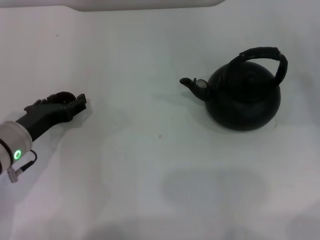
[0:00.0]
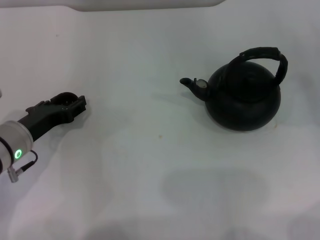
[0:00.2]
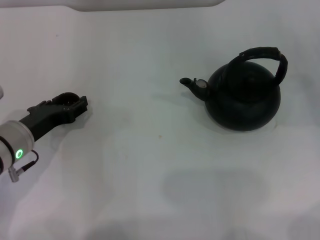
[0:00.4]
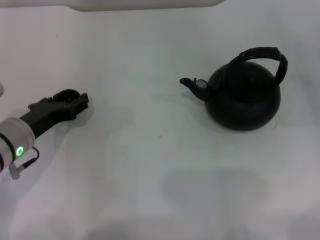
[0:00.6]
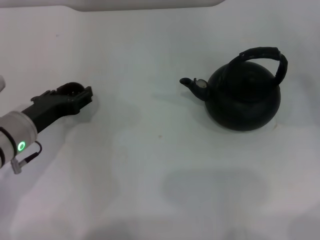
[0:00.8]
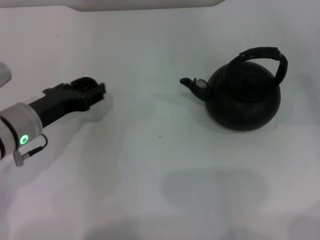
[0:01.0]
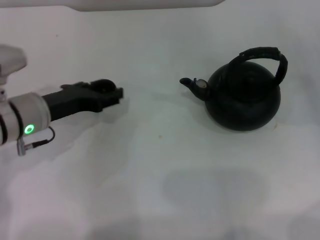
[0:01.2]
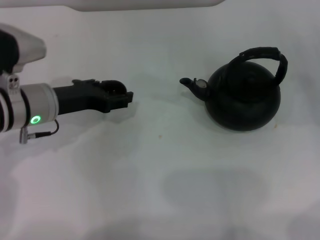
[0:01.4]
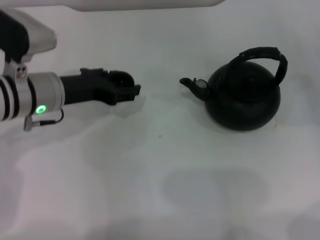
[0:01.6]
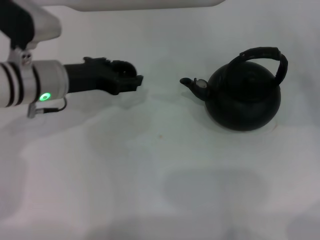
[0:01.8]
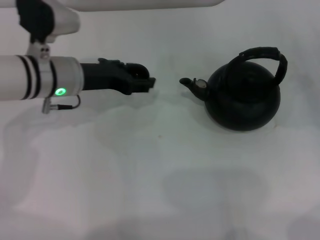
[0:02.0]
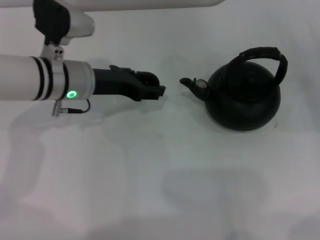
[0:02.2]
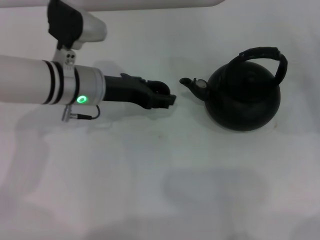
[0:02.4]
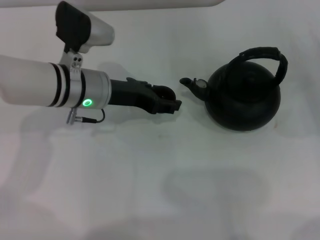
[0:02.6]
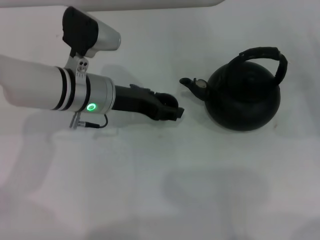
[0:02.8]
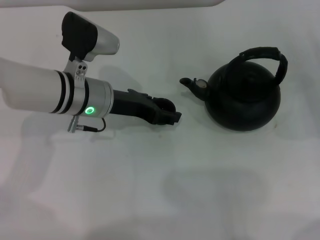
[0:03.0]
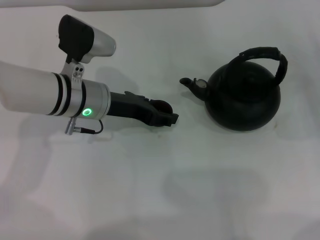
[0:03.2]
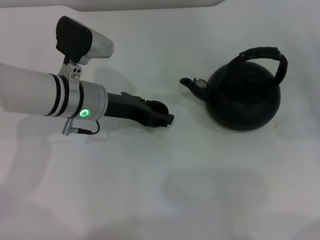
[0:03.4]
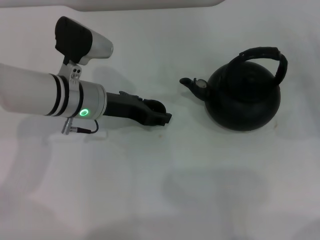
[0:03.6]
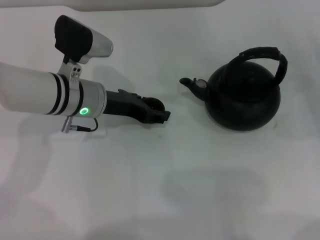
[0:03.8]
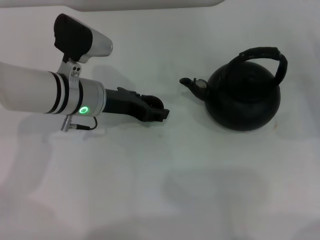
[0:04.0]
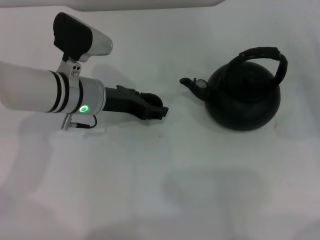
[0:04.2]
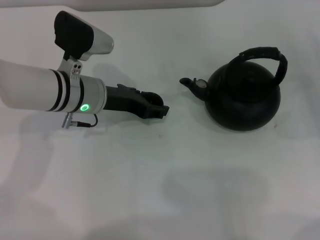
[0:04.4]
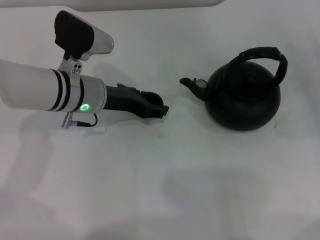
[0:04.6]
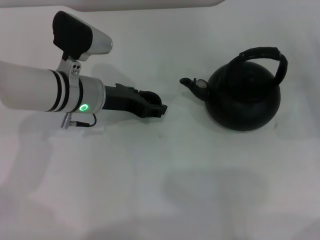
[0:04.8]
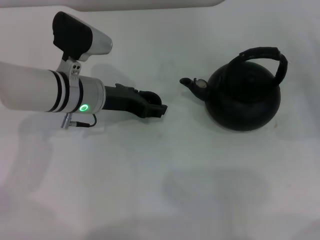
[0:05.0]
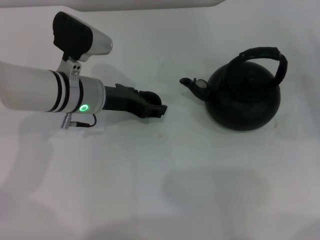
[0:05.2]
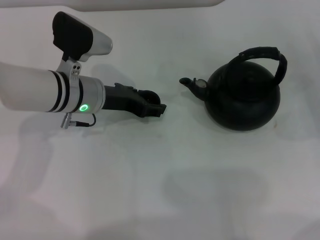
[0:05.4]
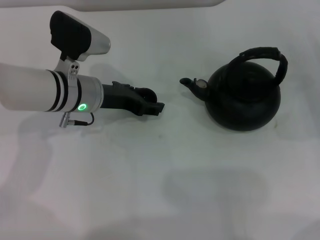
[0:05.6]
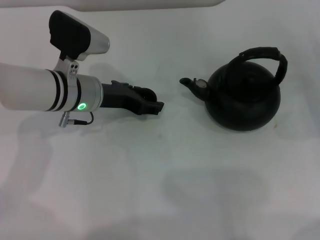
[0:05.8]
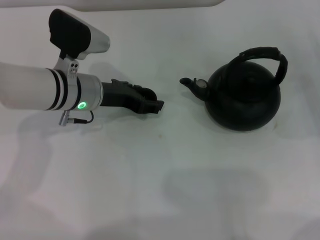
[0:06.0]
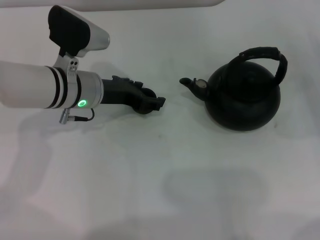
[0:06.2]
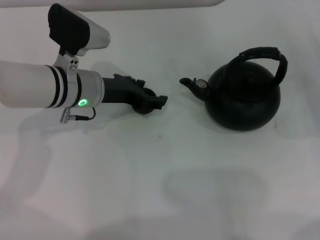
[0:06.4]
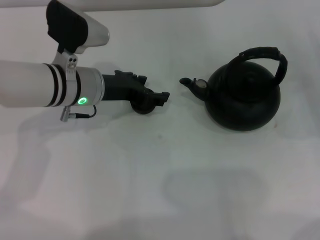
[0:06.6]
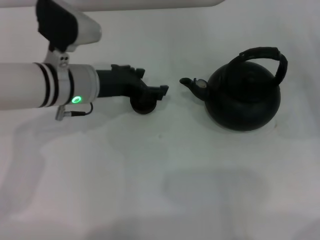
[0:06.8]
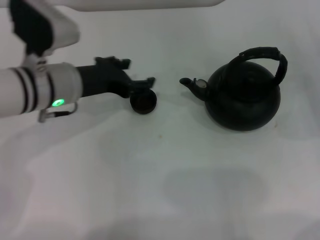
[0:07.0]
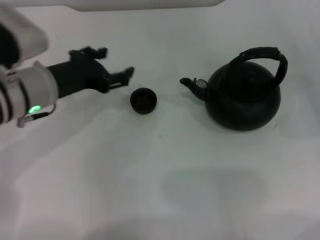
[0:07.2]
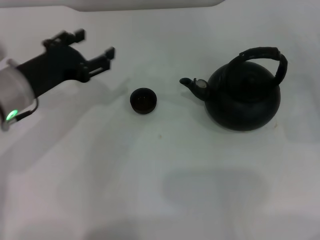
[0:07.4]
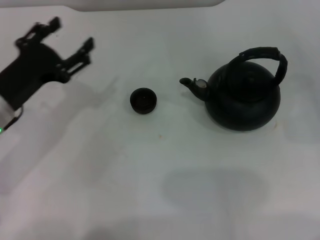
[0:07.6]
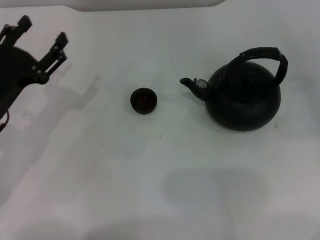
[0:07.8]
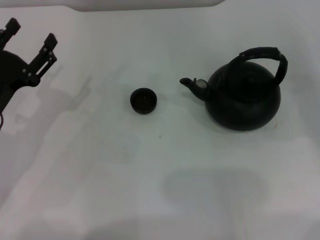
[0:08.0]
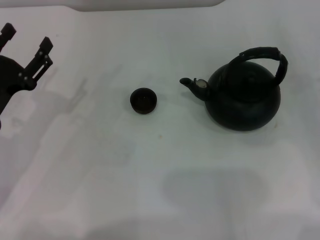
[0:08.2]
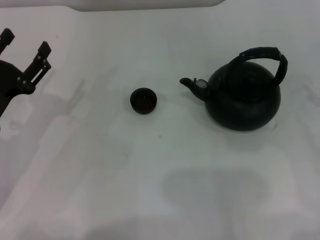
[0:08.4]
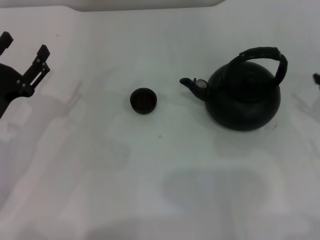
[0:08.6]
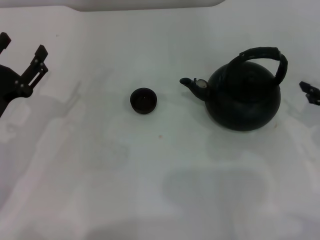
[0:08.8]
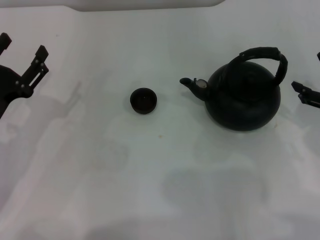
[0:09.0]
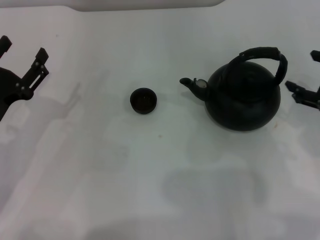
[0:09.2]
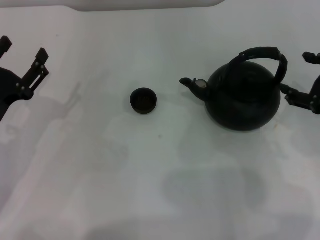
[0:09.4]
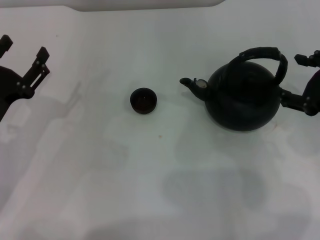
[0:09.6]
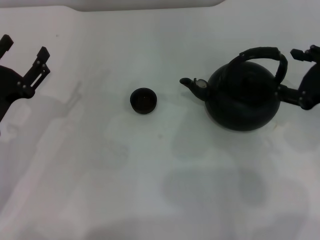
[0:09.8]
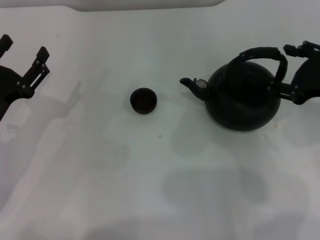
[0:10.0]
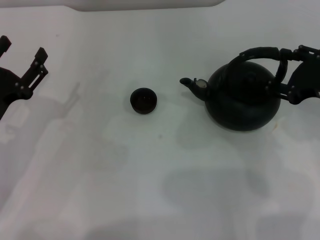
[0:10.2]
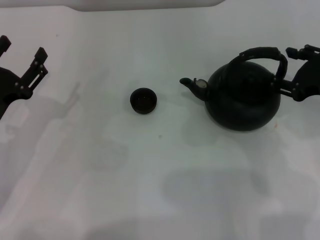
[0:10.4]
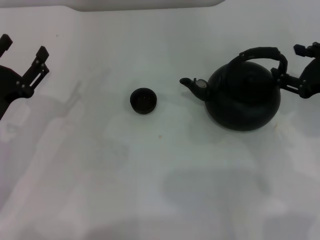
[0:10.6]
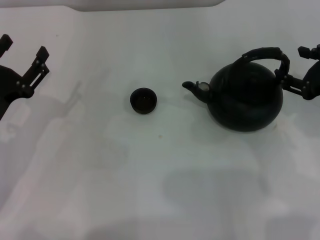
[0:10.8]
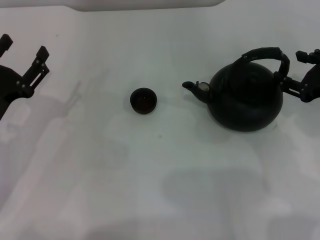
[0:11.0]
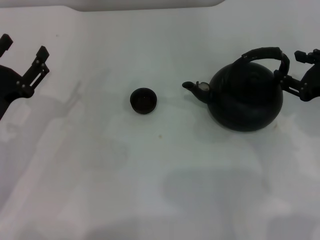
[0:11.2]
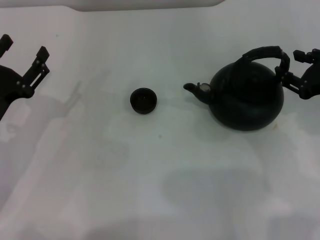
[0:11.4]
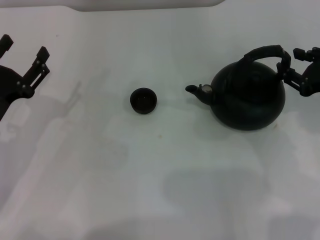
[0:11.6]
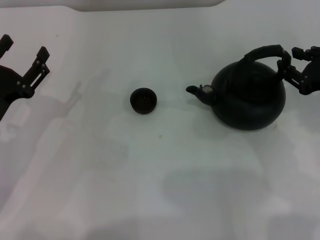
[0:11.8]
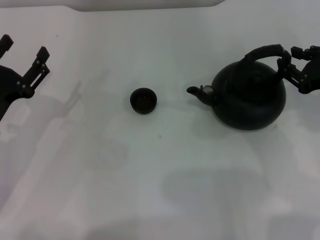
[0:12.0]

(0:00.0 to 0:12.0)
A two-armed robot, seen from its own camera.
Task of the whole recording: Grasp the handle of the teapot with one hand and pour tea into the teacup.
Step, 0:01.0 - 0:07.0: Place the teacup in the center of view with the left gripper.
0:00.0 - 0:01.6: The left gripper heads forward and upward, covering some 10 cm, and closes.
0:01.6 - 0:03.0: The left gripper is displaced to the right by about 5 cm.
0:03.0 - 0:04.4: The grippers make only small movements.
0:04.4 - 0:06.0: The left gripper opens.
0:06.0 - 0:07.6: The left gripper travels to the left and backward by roughly 15 cm.
0:07.6 - 0:09.0: The left gripper moves roughly 5 cm.
0:09.0 - 0:10.4: The grippers make only small movements.
0:10.4 - 0:12.0: The right gripper closes its fingers.

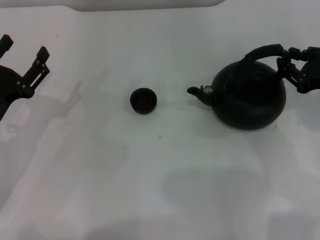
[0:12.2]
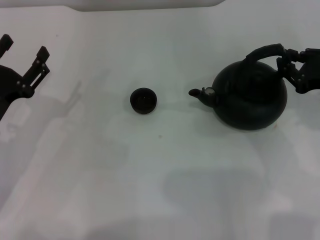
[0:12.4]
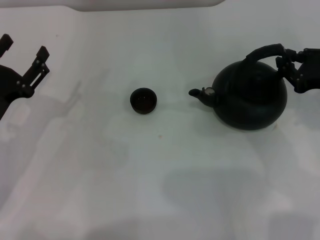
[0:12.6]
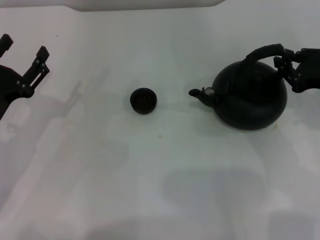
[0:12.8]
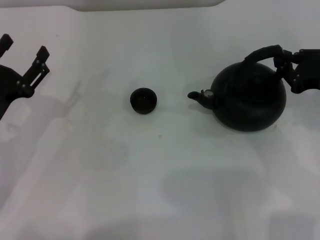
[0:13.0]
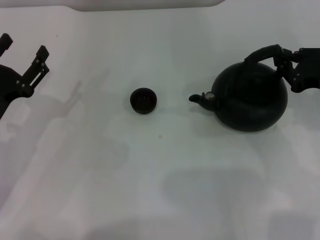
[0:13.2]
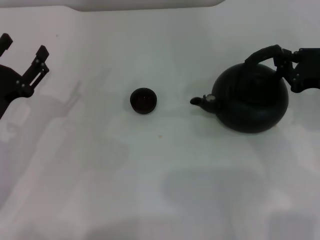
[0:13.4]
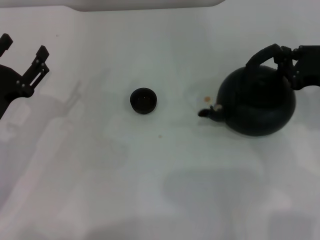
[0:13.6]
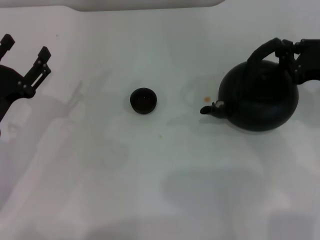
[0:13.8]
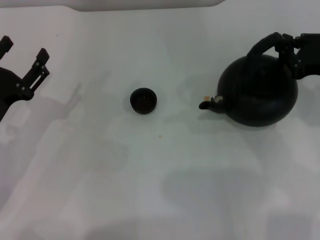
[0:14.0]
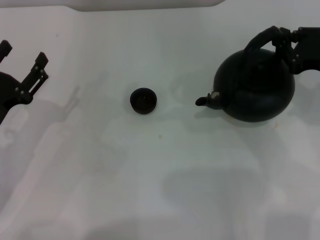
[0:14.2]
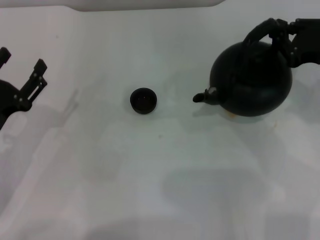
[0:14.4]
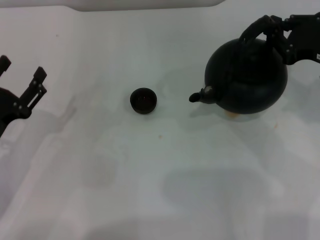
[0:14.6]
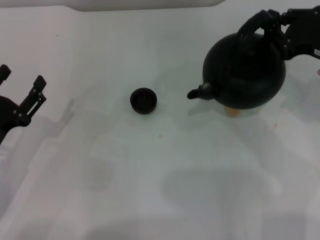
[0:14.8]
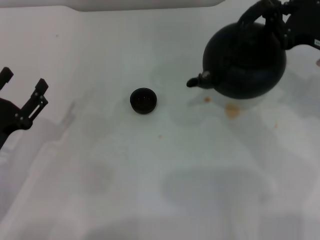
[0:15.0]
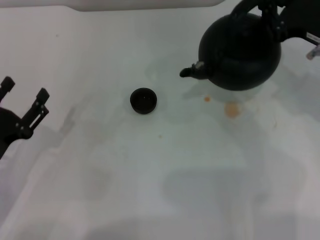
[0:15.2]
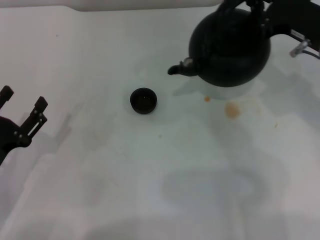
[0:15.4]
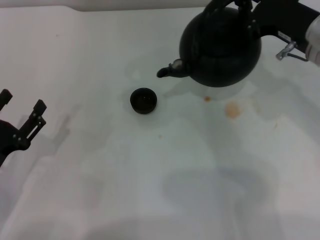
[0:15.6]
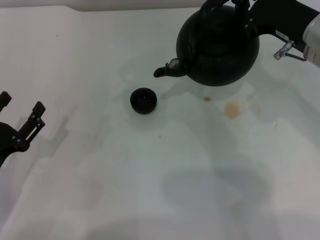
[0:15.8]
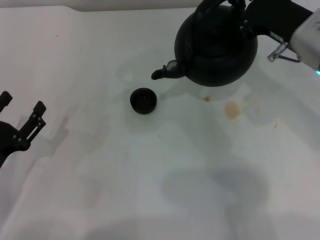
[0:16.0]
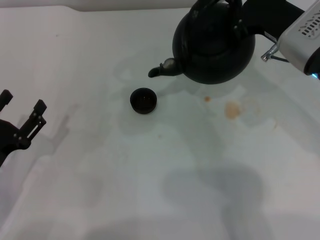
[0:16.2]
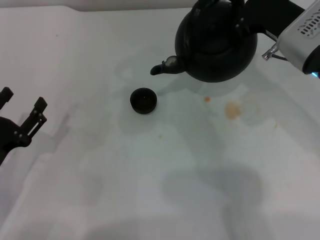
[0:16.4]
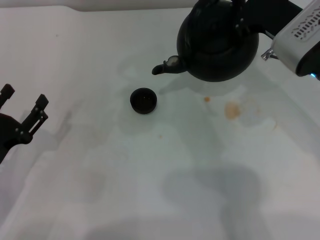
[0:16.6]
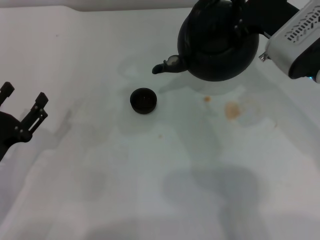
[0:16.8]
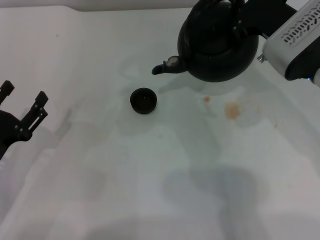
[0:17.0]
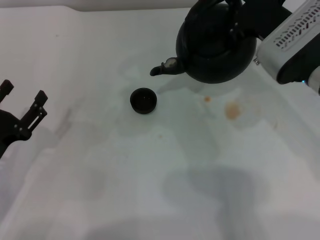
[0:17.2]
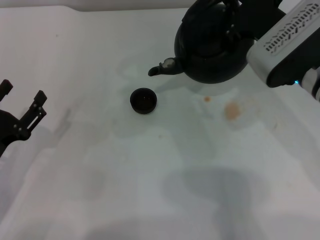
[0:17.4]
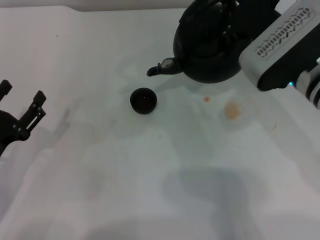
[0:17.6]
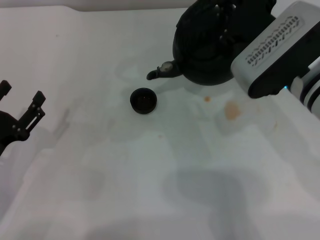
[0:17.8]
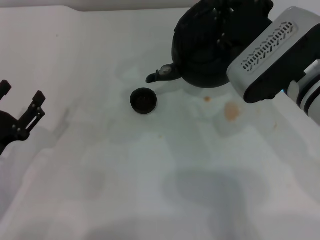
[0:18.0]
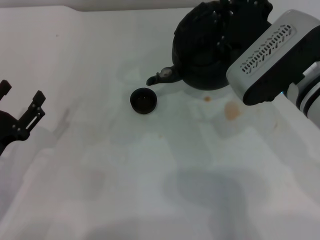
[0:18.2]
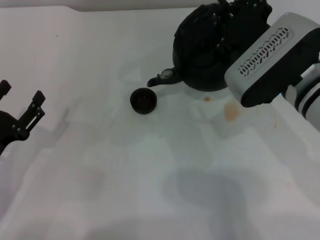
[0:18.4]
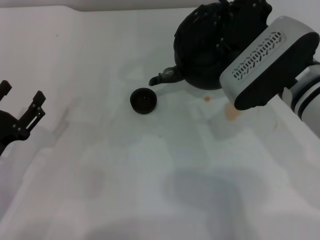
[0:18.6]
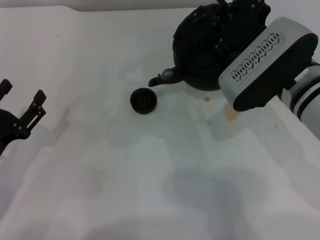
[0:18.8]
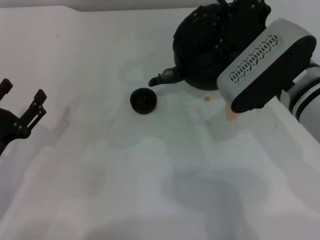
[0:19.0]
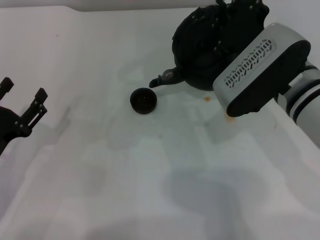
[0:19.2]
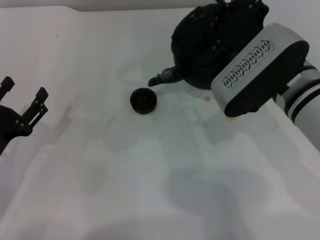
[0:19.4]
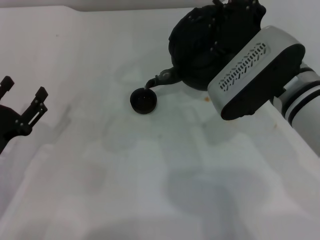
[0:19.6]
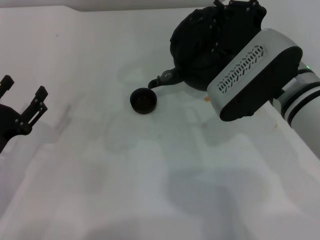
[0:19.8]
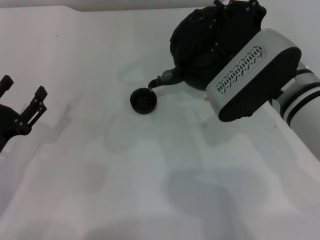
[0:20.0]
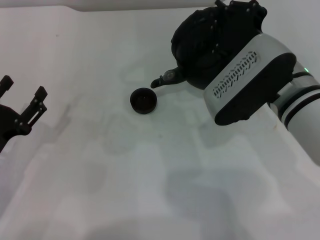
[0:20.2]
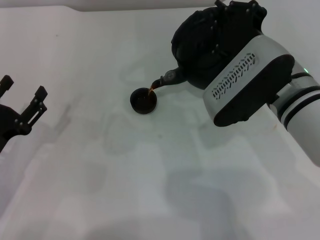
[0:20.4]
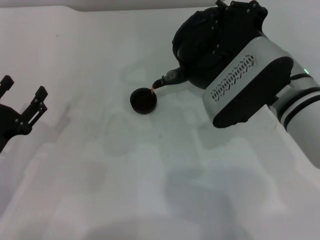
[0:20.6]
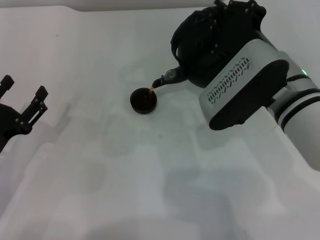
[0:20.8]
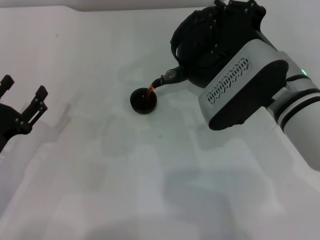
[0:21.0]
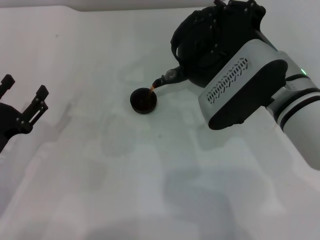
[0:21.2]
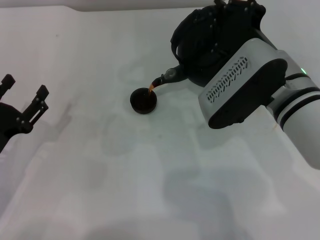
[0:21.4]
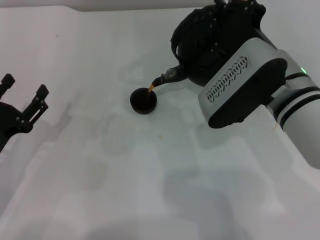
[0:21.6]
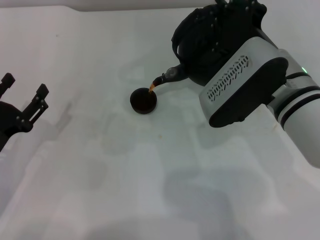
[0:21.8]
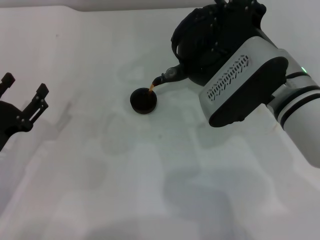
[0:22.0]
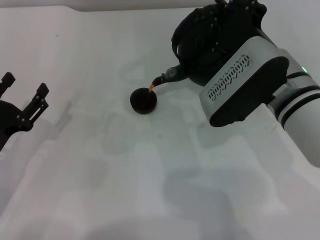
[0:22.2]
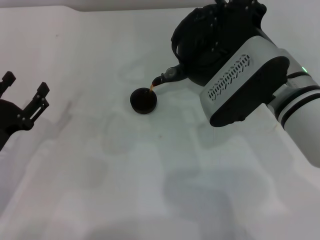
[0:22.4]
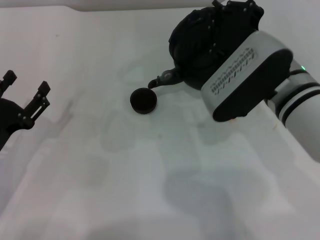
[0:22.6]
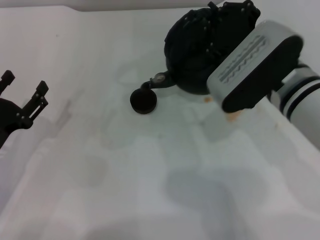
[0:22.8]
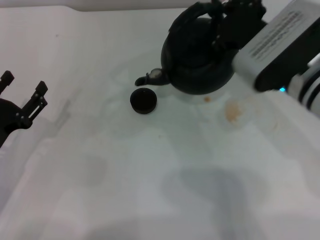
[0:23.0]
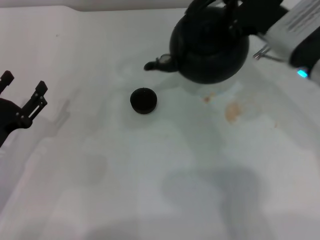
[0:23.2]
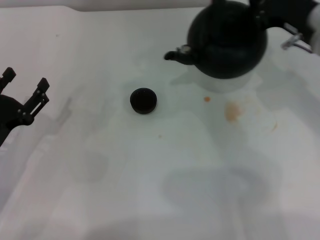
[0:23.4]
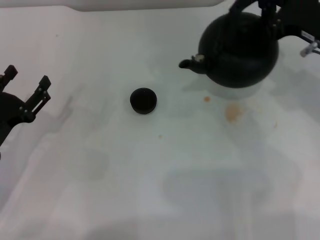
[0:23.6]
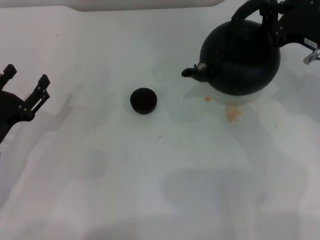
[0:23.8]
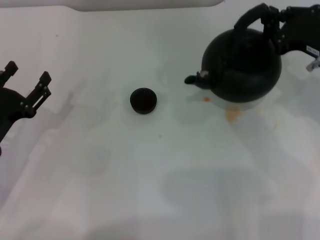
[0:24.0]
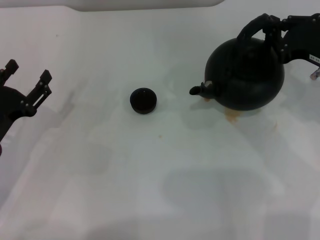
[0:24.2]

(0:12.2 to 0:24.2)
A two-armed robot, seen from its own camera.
Task of the whole recording: Grasp the handle of the teapot with one hand and pour tea into the teacup.
Step, 0:14.4 - 0:23.2: Pour tea into the teacup with the right gripper.
0:12.2 - 0:13.8: Neither gripper changes place.
0:13.8 - 0:15.2: The left gripper changes place by about 5 cm. Meanwhile the right gripper changes place by roughly 5 cm.
0:15.2 - 0:16.6: The right gripper moves to the left, approximately 5 cm.
0:16.6 - 0:19.8: There are only small adjustments of the grippers.
0:19.8 - 0:21.2: The grippers stay close to where they were, moving slightly.
0:21.2 - 0:22.6: The two grippers keep their place.
0:22.6 - 0:24.2: The right gripper moves to the right, about 15 cm.
